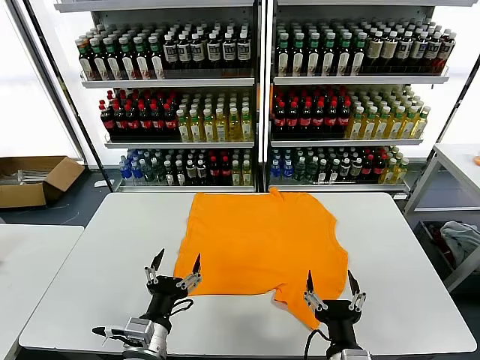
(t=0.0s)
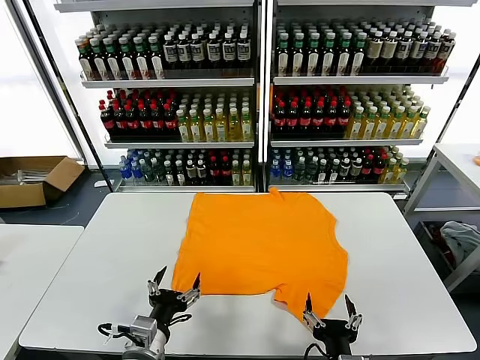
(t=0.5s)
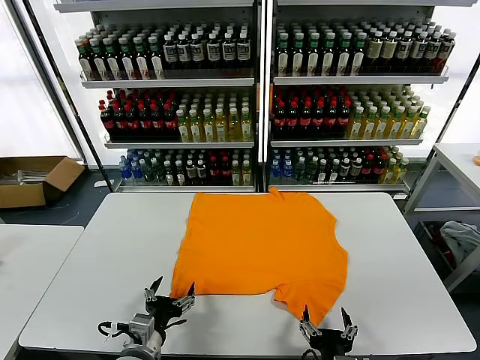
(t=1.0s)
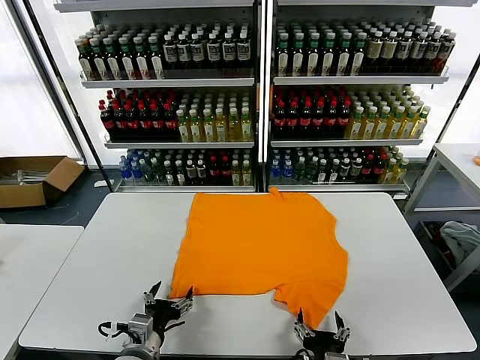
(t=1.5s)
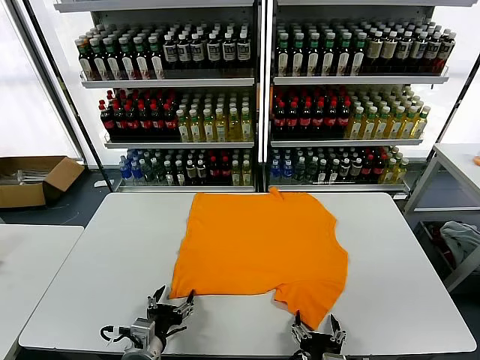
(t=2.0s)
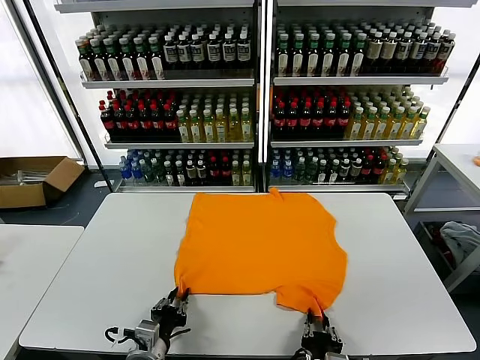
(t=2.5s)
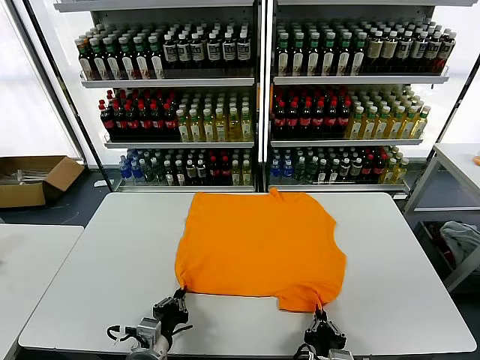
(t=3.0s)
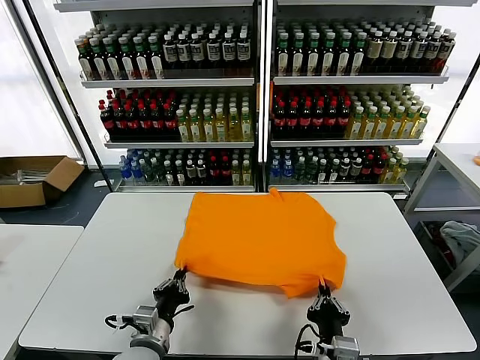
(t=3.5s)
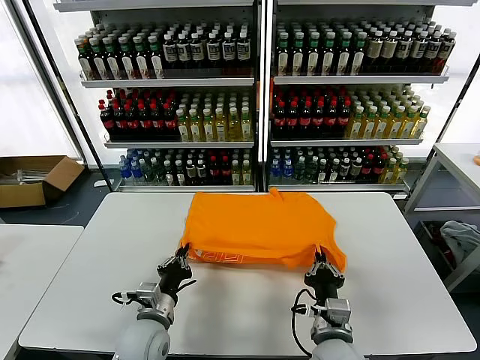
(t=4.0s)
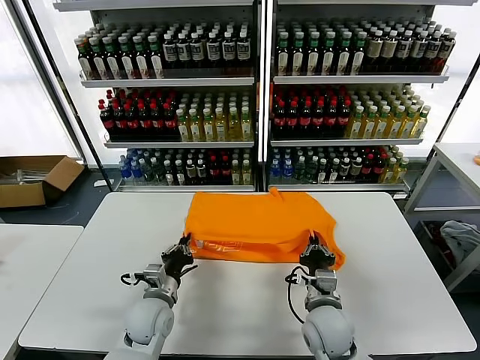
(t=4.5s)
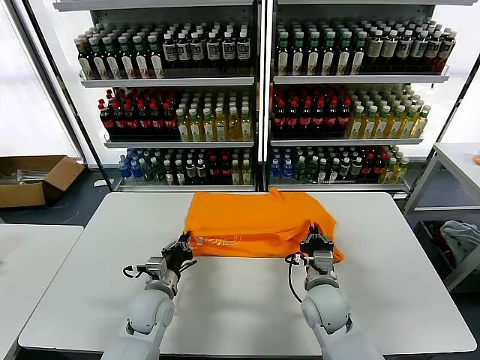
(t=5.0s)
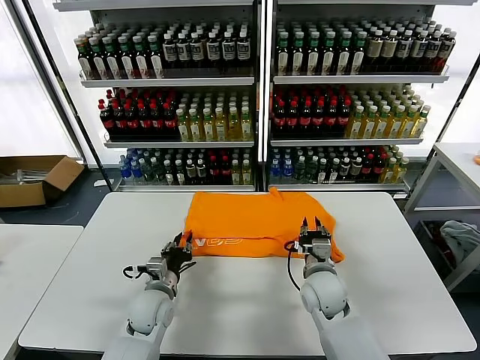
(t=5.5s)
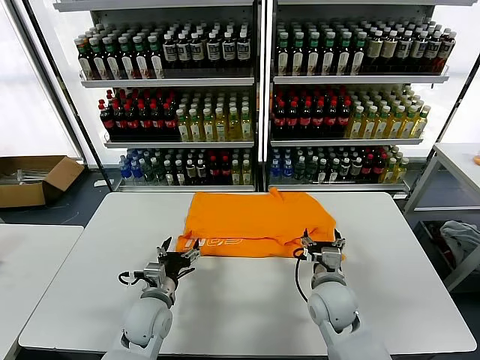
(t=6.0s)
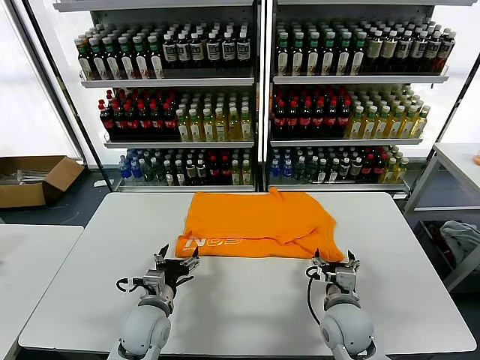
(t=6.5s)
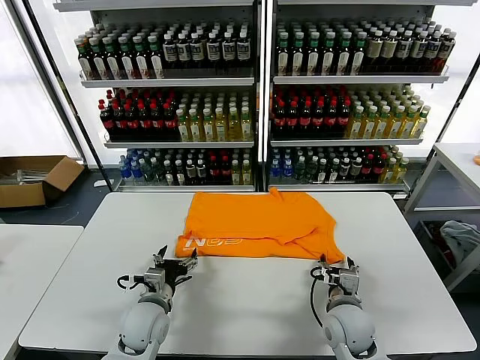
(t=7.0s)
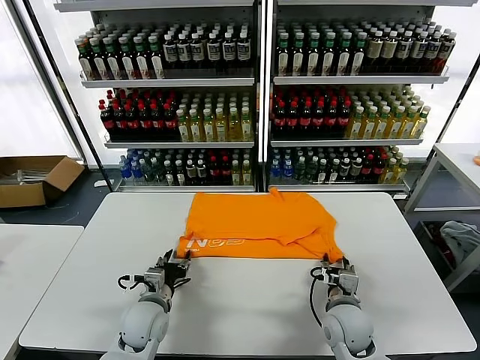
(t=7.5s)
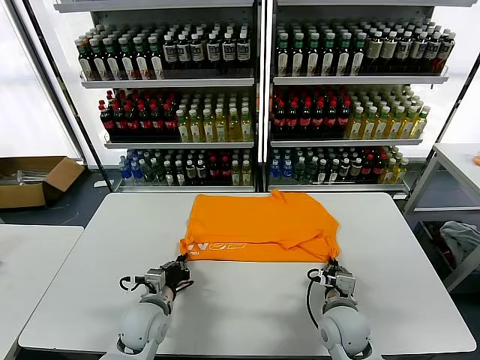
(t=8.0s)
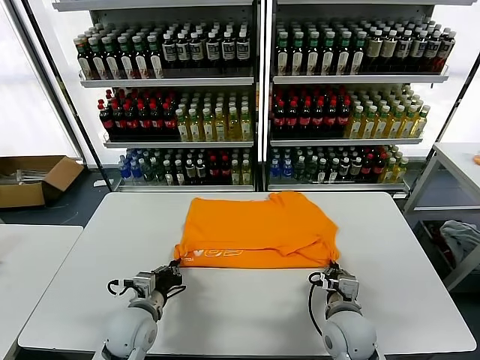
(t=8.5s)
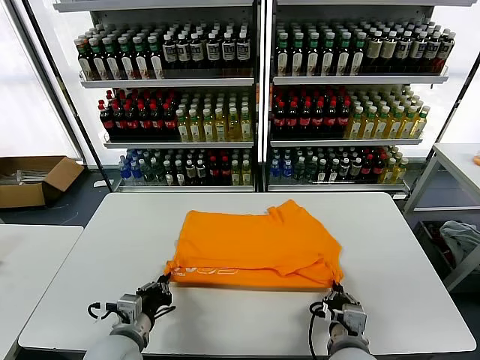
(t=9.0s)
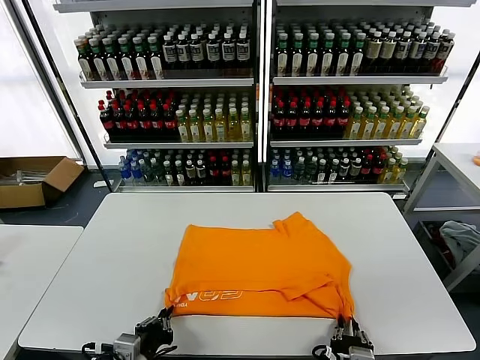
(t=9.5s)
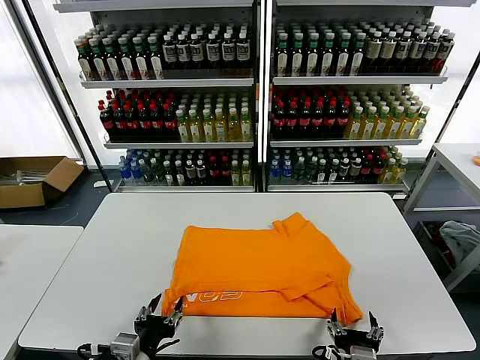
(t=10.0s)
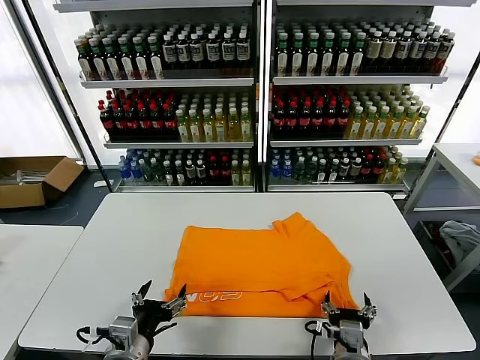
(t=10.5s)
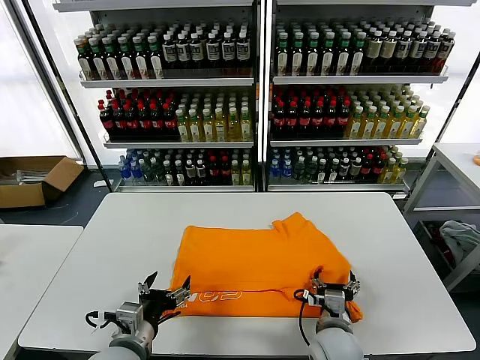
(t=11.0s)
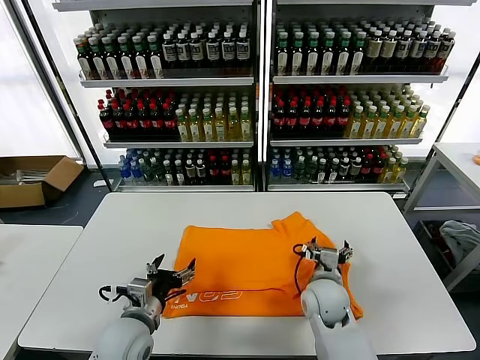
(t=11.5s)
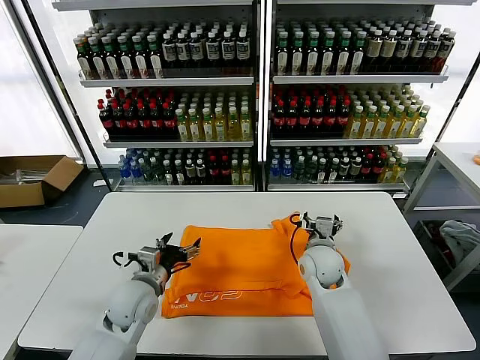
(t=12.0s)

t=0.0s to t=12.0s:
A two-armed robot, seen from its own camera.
Task of the whole recording: fold and organize the clothes.
Step, t=0.0s to t=2.5s: use both grippers simultaneously to clamp the lower edge of the clothing fabric.
Step, t=3.0s to t=5.5s: use both grippers to drag the lower edge of the fabric forward and fold it over the upper edge.
Step, t=6.0s to t=9.5s: Drag the clothes downward with both gripper.
t=2.0s to t=4.0s: The grippers both shift forward by approximately 10 cm. The right gripper closes its fingers. The left gripper closes up.
t=4.0s to t=6.0s: The right gripper goes some 10 cm forward, and opens its fingers. Meanwhile the left gripper opens up.
t=6.0s to t=8.0s: The left gripper closes up. The right gripper closes up.
t=8.0s to t=10.0s: The left gripper moves backward and upward, some 20 cm, and opens up; the right gripper shifts about 15 cm backward, and opens.
t=10.0s to t=12.0s: The left gripper shifts about 20 cm forward, and opens up. The right gripper is displaced forward by about 30 cm.

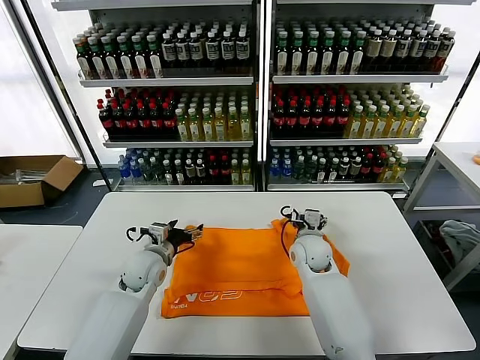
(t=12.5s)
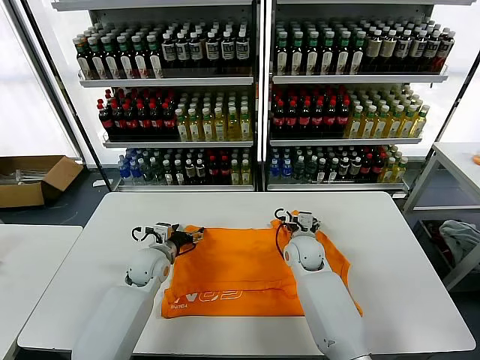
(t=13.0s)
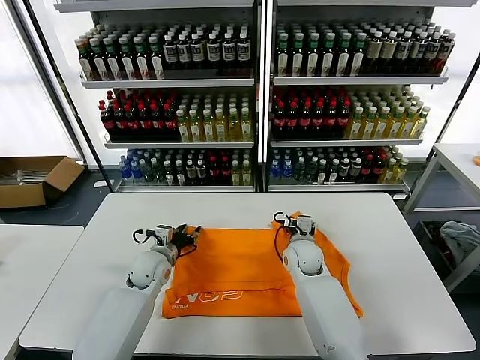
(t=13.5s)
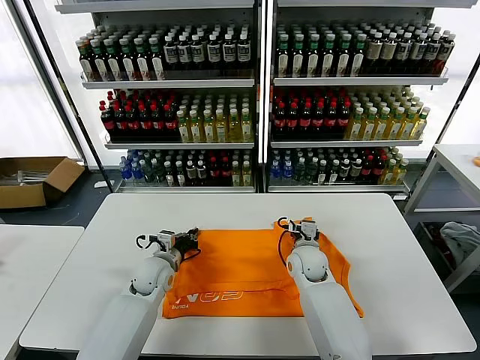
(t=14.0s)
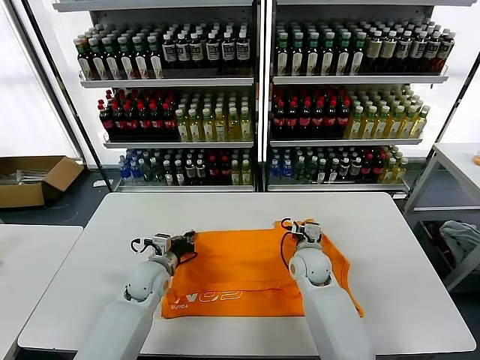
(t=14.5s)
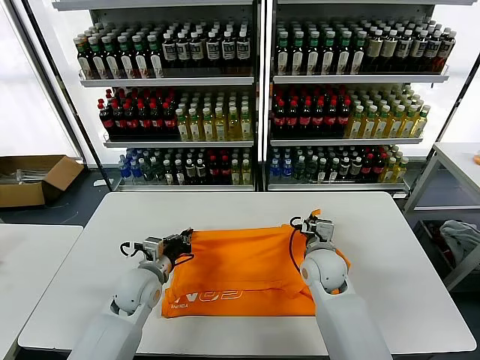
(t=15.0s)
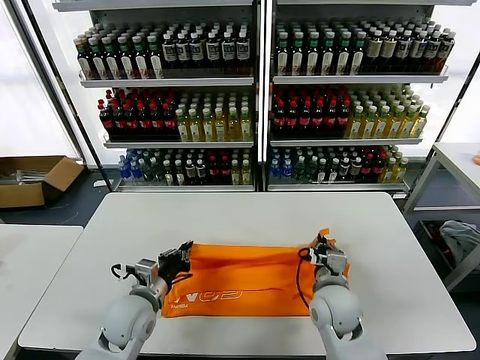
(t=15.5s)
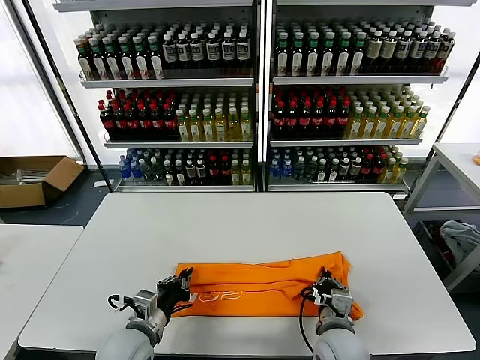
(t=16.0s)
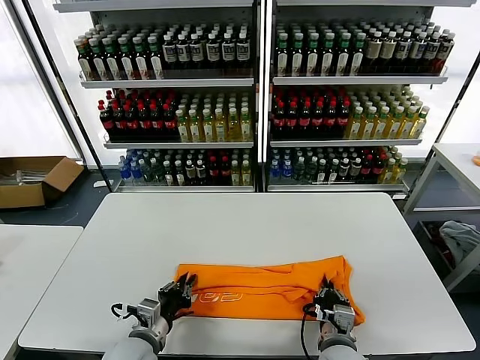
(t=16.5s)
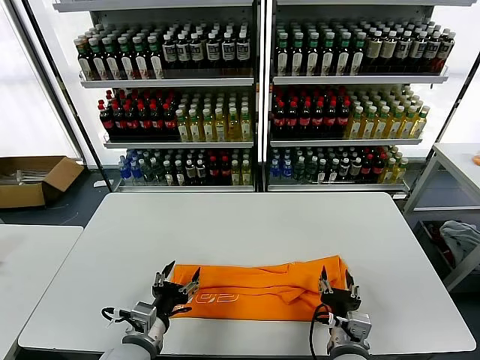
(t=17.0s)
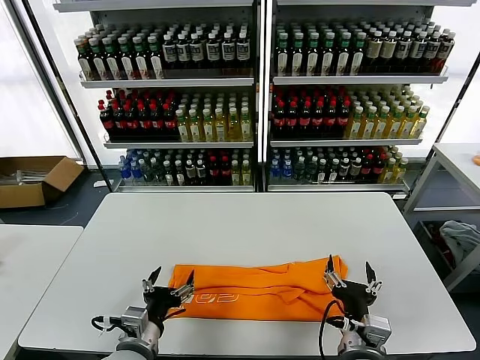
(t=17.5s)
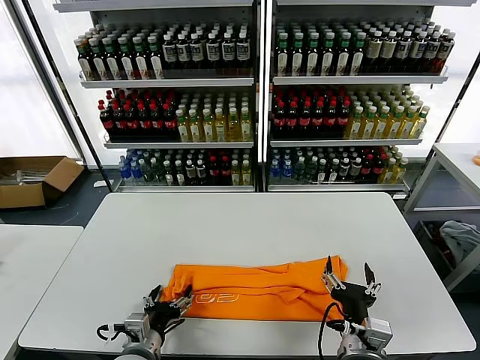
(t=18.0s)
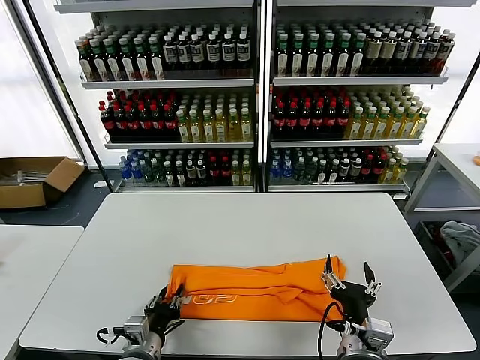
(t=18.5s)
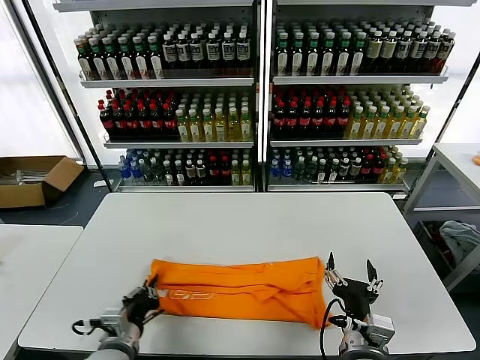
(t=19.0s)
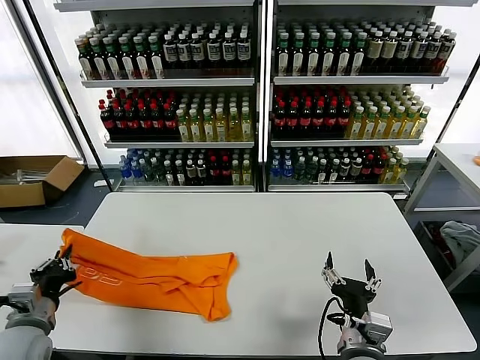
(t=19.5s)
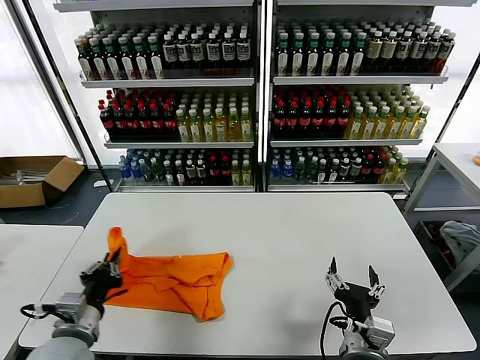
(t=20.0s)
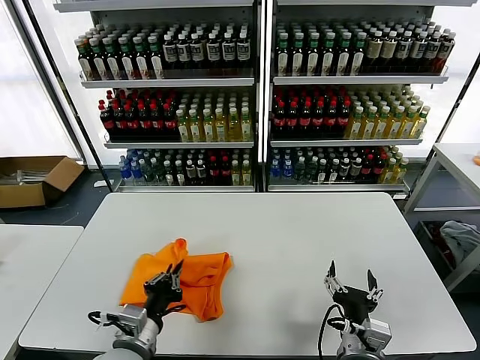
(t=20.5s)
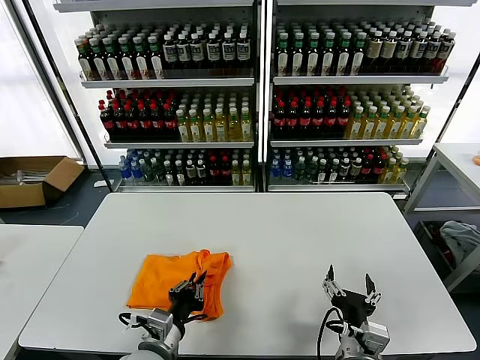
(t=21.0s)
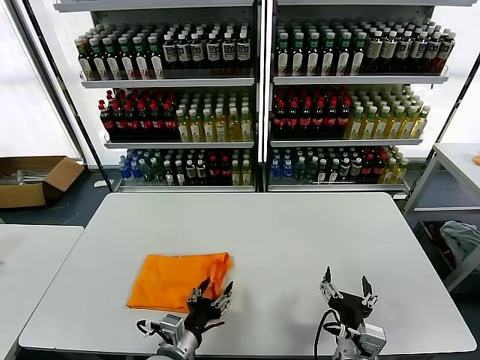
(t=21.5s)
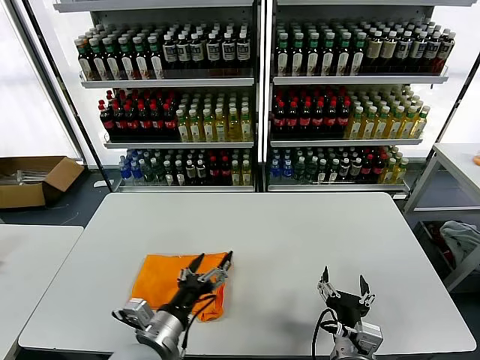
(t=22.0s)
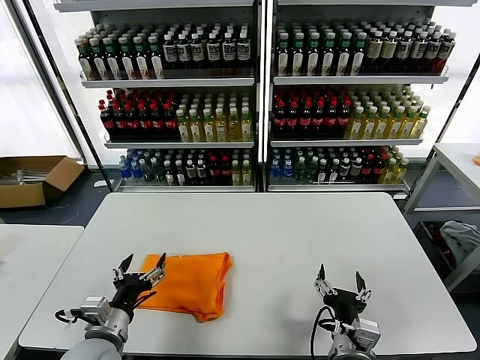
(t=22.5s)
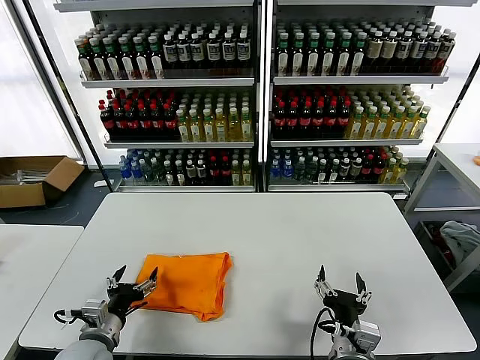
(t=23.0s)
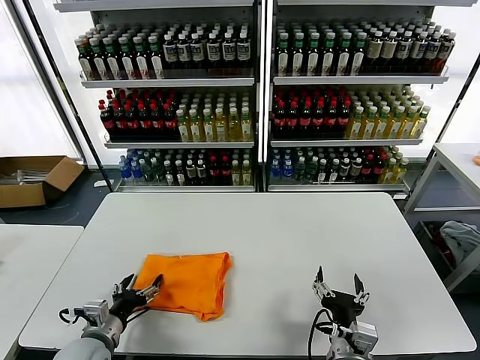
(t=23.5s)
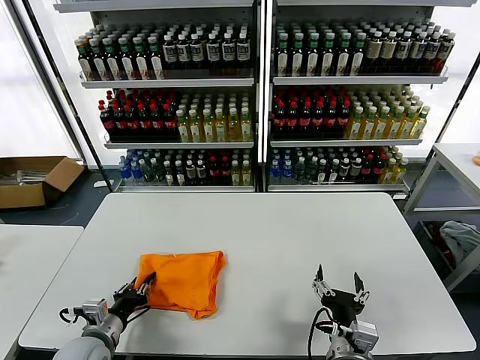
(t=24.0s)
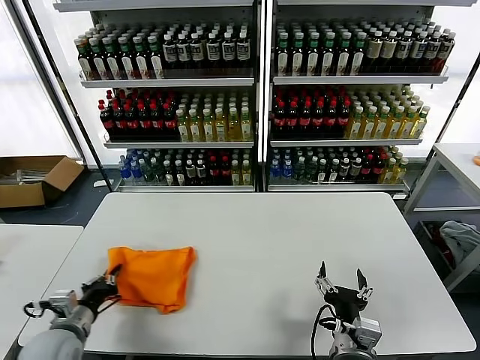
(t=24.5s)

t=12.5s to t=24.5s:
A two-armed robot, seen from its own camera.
Task of the whole recording: fold and organize the clothes.
Step, t=14.5s to t=16.5s: use both grippers to drag the upper edge of the fabric backward and fold it over the lower edge.
Step, t=17.5s to t=18.5s: use the left gripper to clamp the left edge of the fabric.
Step, t=19.0s to t=21.5s: use the left gripper to drag the left edge of the fabric to the left and folds it over the right edge.
t=12.5s to t=14.5s: The right gripper closes its fingers. The left gripper closes up.
t=14.5s to t=16.5s: Both grippers move backward, about 20 cm.
t=16.5s to t=18.5s: The right gripper travels upward by some 10 cm, and opens its fingers. Meanwhile the left gripper opens, then closes once more.
t=18.5s to t=20.5s: The left gripper shifts about 5 cm upward, moves some 15 cm to the left and comes back, and closes.
t=20.5s to t=22.5s: The left gripper is displaced to the left by roughly 5 cm, and opens its fingers.
t=22.5s to t=24.5s: The left gripper is displaced to the left by roughly 10 cm, and closes.

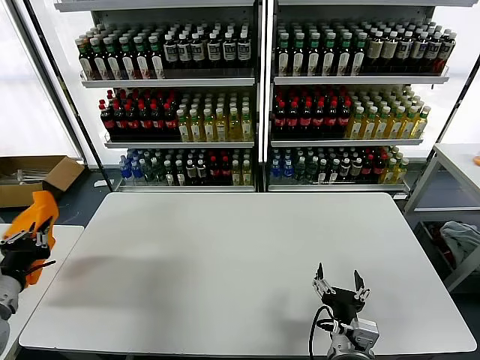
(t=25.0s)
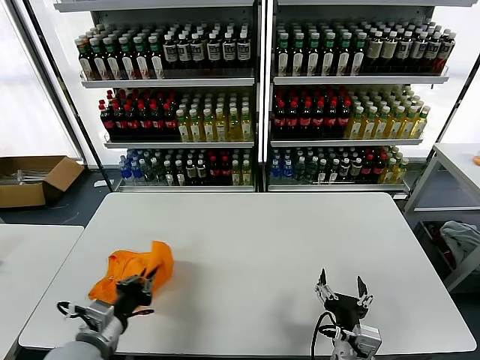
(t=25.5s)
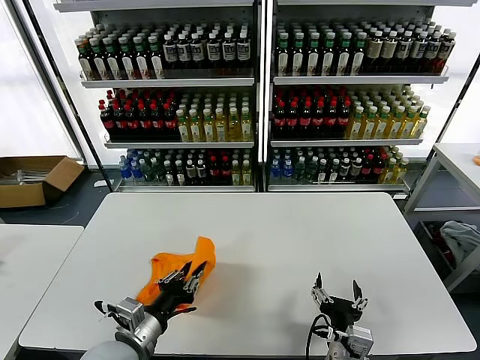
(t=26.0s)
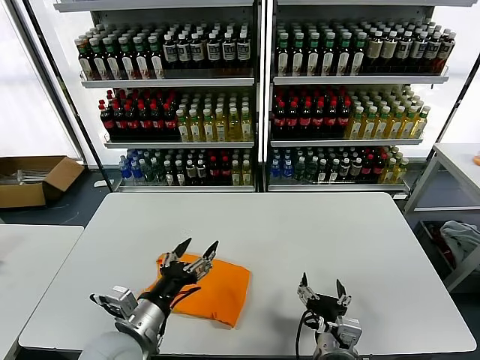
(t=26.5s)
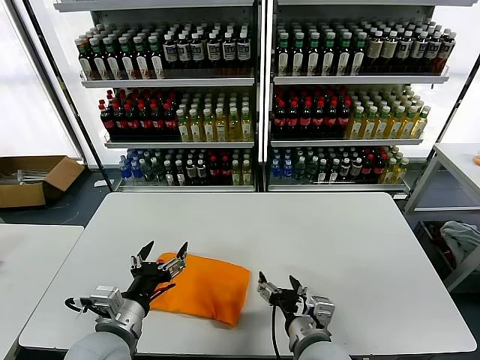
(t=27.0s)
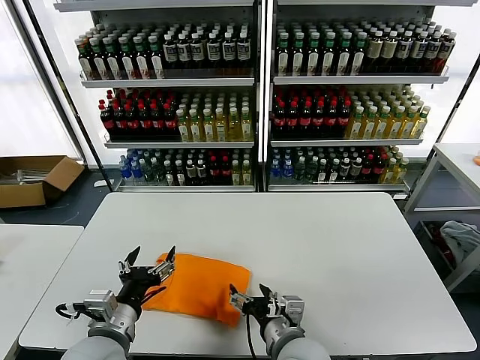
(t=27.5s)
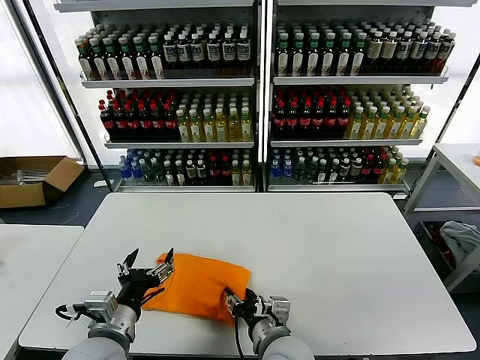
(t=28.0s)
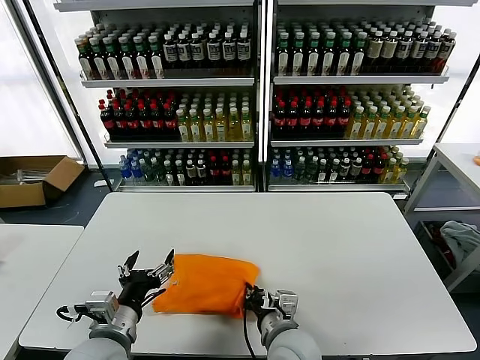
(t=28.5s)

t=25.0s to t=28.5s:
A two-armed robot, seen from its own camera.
Task of the whole recording: fold and organize the clothes.
t=25.0s to t=27.0s: The left gripper goes about 20 cm to the right, and opens its fingers, while the right gripper shifts by roughly 5 cm.
t=27.0s to t=28.5s: The right gripper moves to the left, roughly 5 cm, and closes its fingers.
